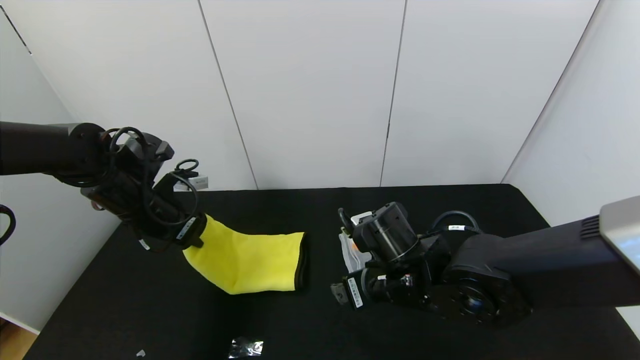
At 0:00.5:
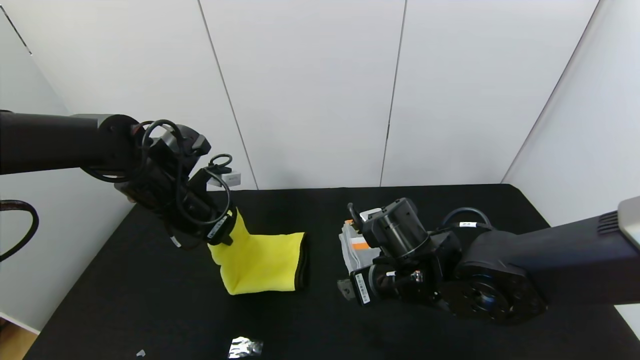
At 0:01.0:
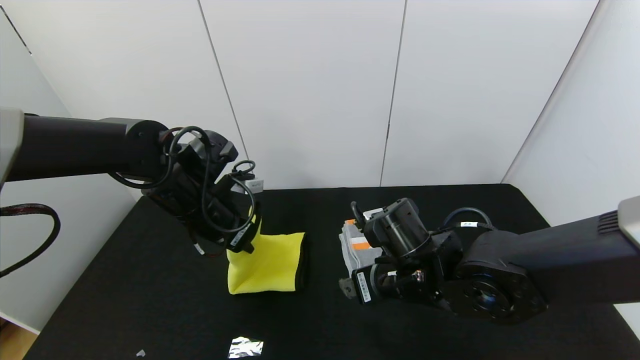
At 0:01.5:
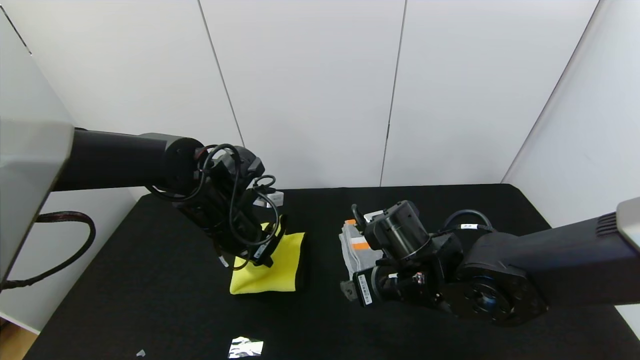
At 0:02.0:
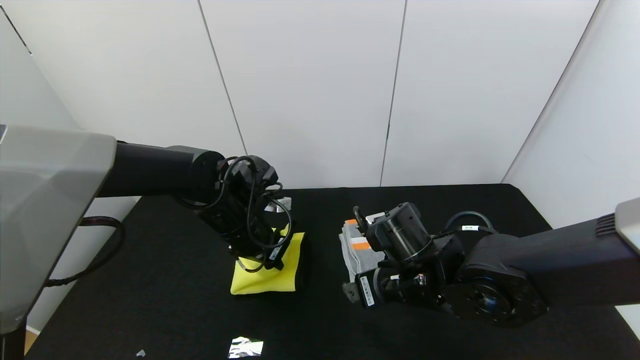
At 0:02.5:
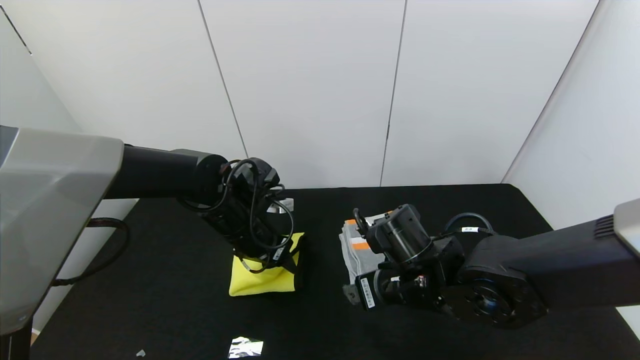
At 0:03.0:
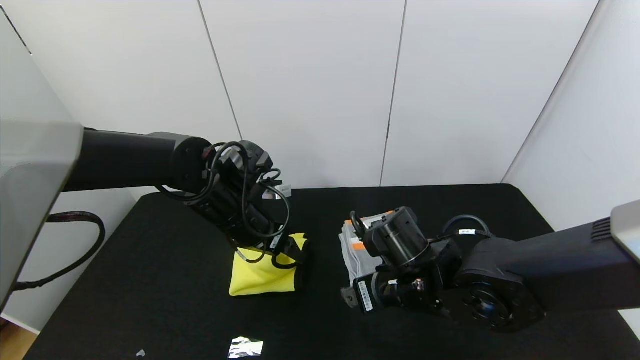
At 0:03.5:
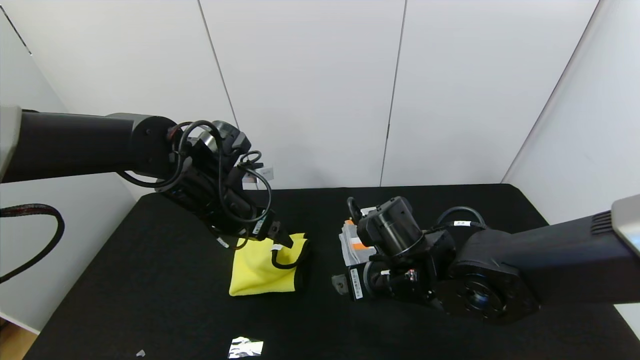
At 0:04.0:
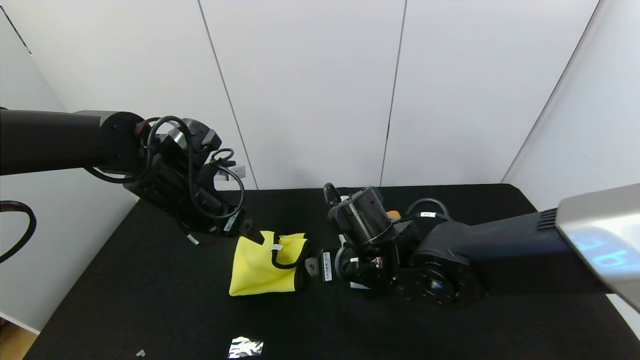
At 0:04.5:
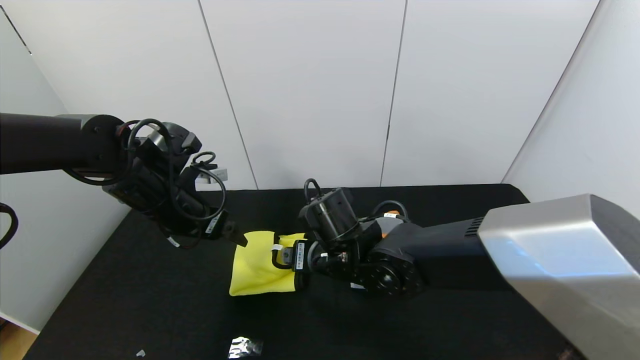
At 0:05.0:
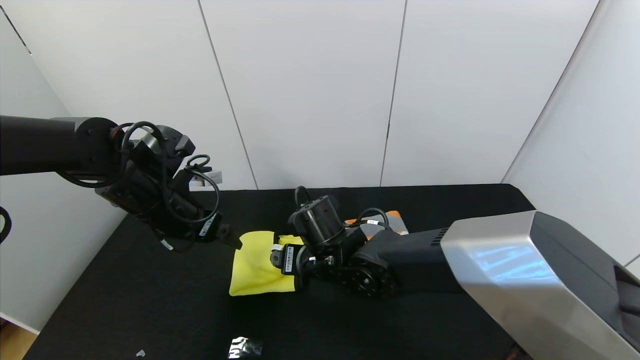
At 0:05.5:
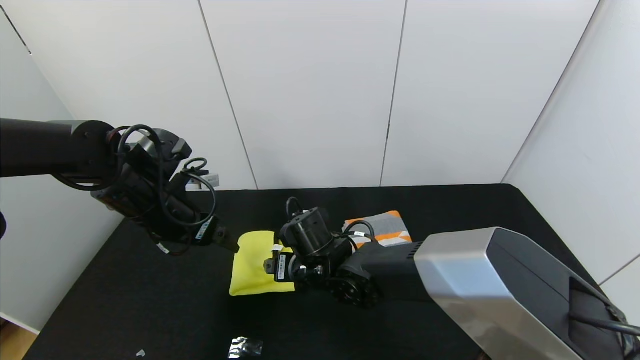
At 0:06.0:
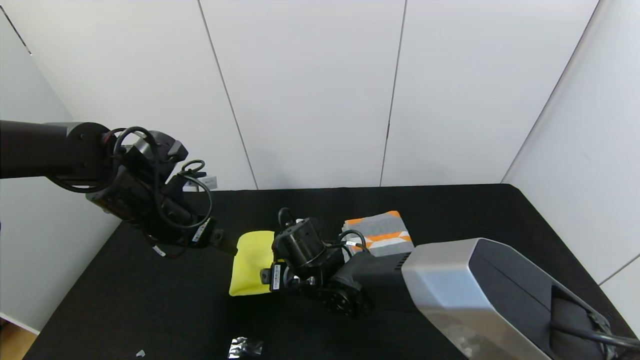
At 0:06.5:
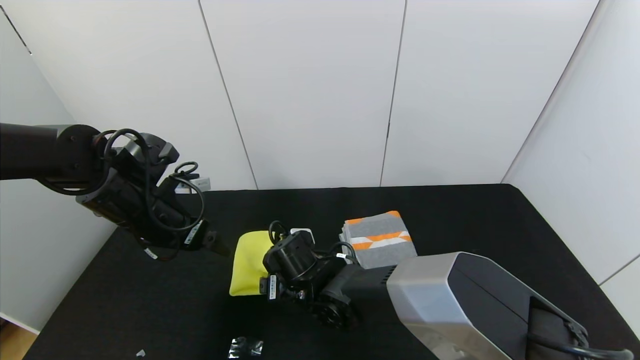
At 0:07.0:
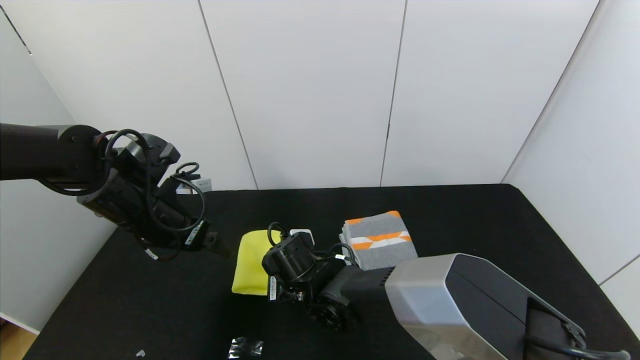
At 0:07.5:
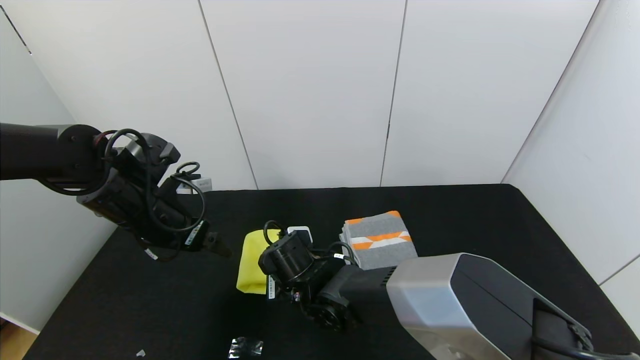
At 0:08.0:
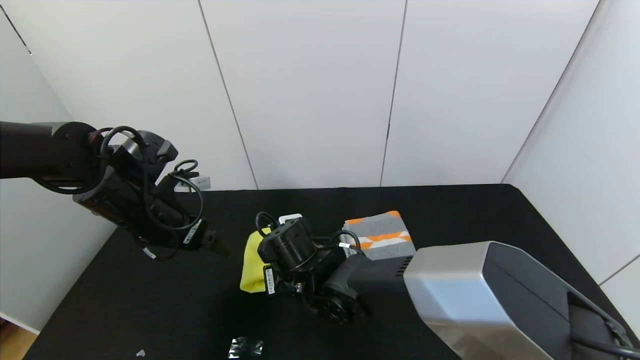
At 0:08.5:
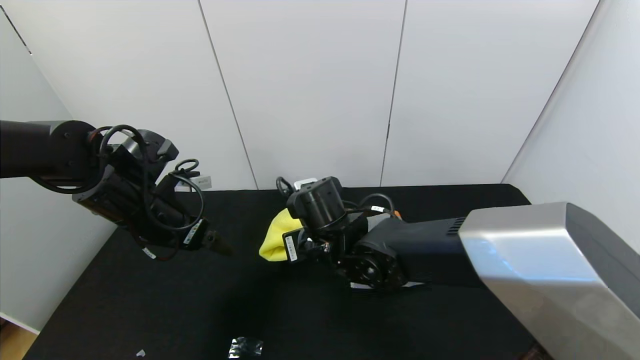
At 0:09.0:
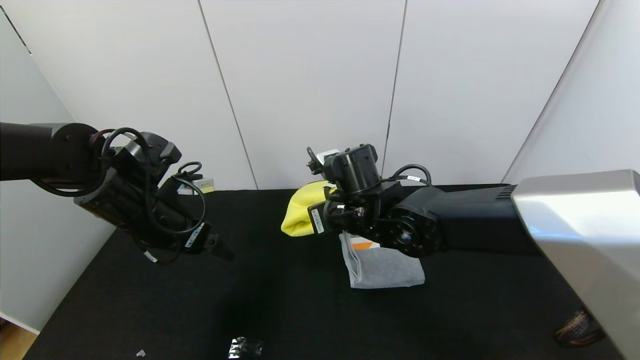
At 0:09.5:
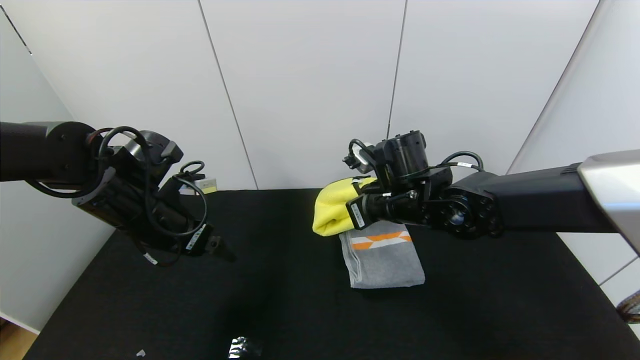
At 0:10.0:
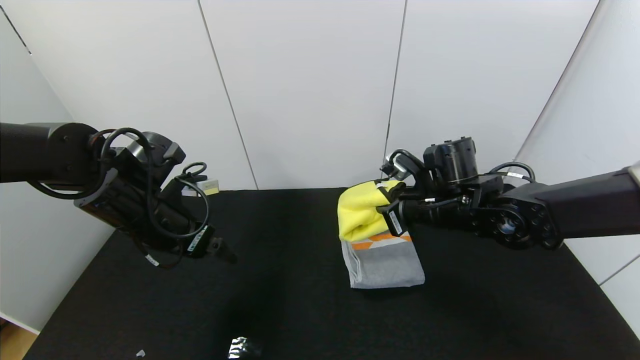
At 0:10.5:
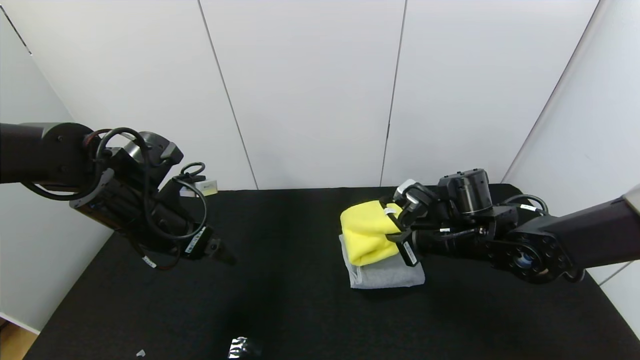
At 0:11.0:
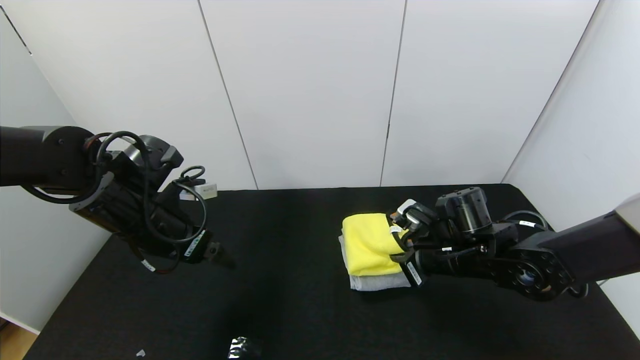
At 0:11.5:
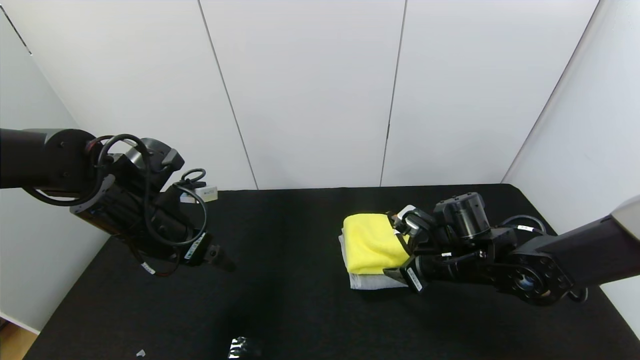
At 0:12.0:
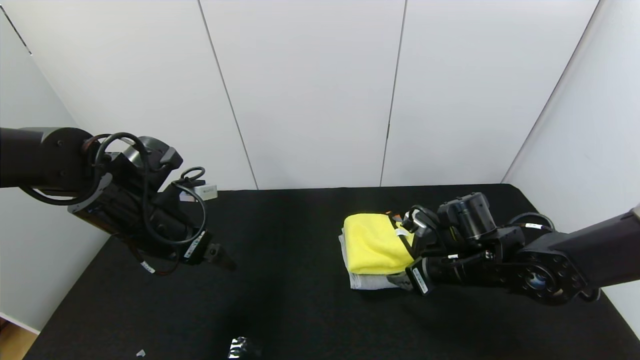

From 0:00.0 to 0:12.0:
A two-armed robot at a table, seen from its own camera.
Task of the whole recording: Use the gripper to fold the yellow towel and grey towel in half twice,then put the yellow towel on the grey towel.
Step, from 0:00.0 to 0:03.0: Fold the yellow towel from left to right with left gripper.
From 0:00.0 to 0:02.0: The left gripper moves to the right, roughly 15 cm.
From 0:02.0 to 0:04.0: The right gripper heads to the left, covering about 5 cm. The left gripper goes approximately 10 cm to the left and upward, and opens its fingers.
From 0:04.0 to 0:06.0: The right gripper moves to the left and downward, approximately 10 cm.
From 0:06.0 to 0:08.0: The right gripper closes its fingers.
From 0:08.0 to 0:10.0: The right gripper travels to the right and upward by approximately 25 cm.
From 0:10.0 to 0:12.0: The right gripper moves downward, roughly 5 cm, and opens its fingers.

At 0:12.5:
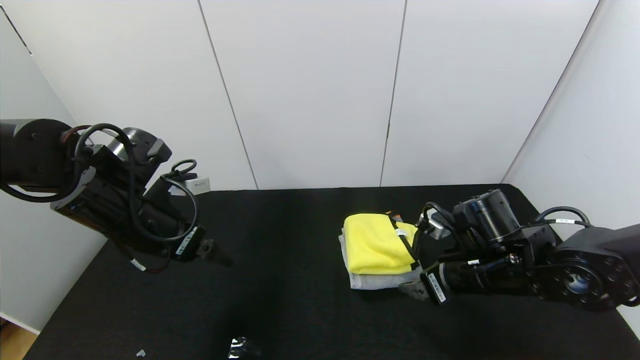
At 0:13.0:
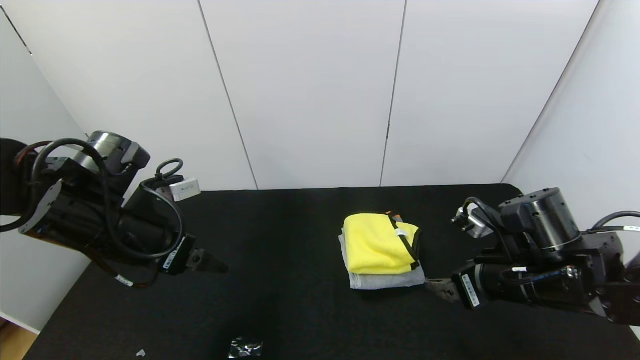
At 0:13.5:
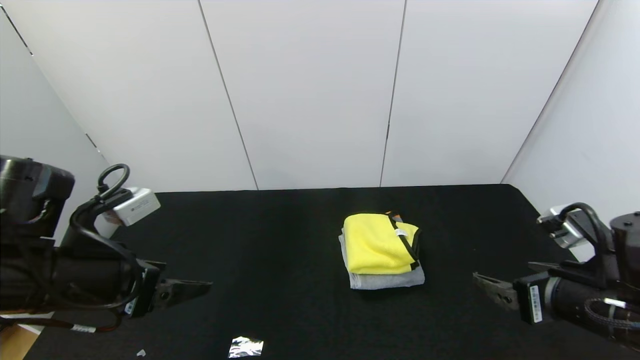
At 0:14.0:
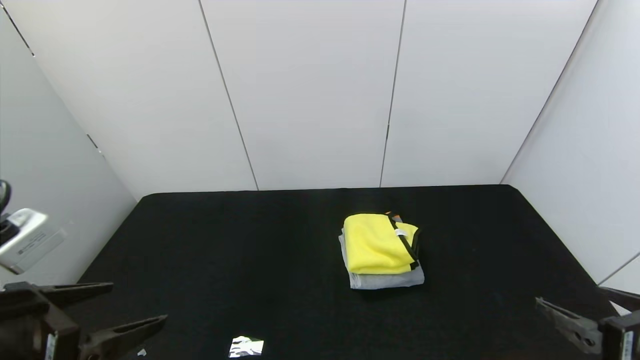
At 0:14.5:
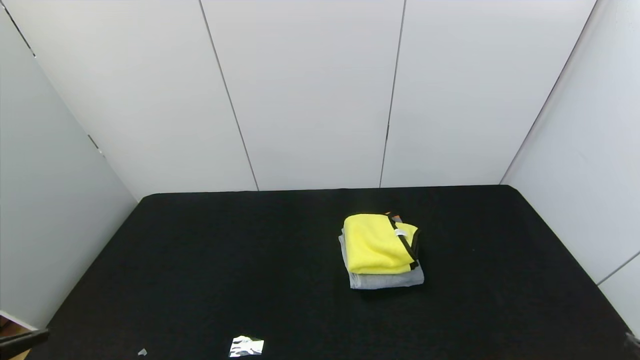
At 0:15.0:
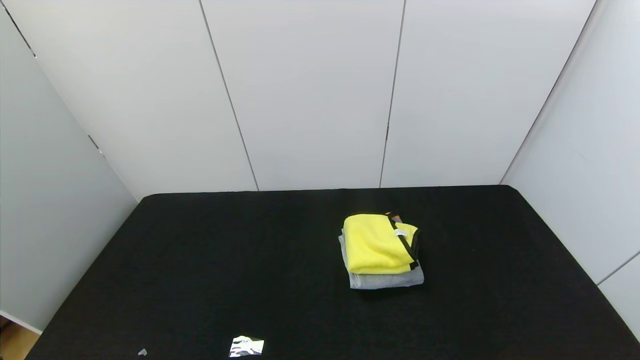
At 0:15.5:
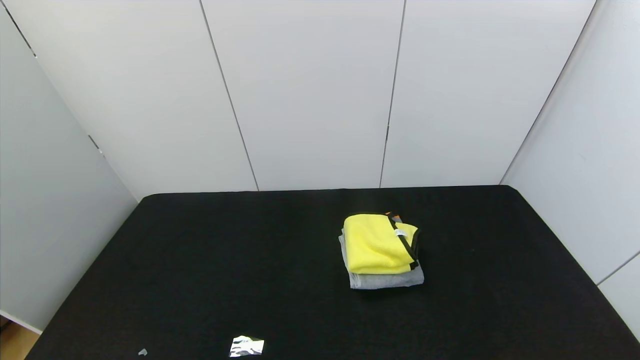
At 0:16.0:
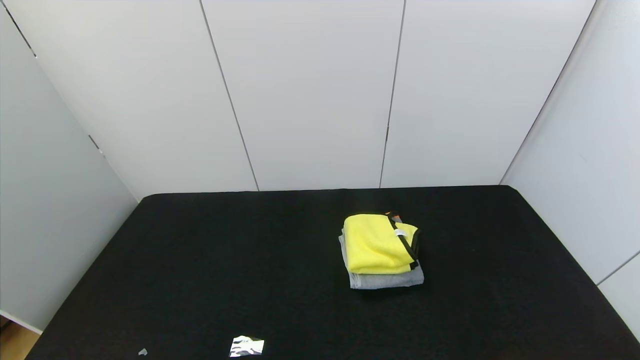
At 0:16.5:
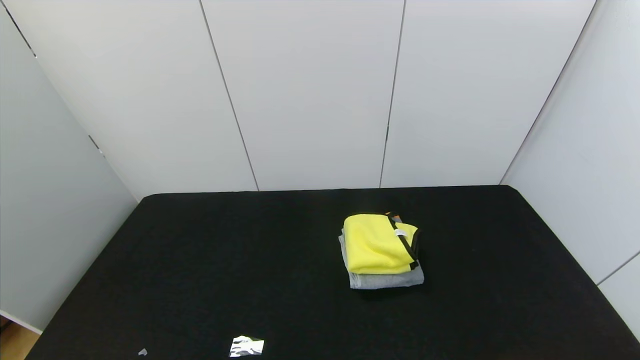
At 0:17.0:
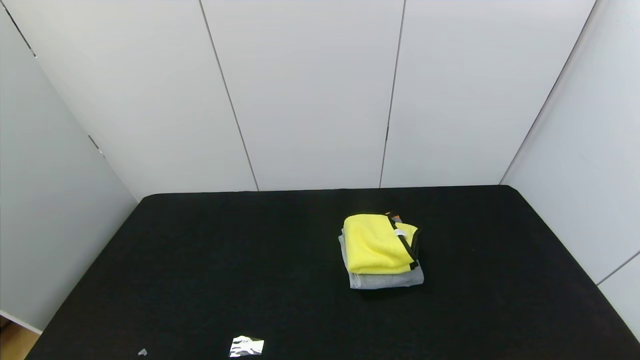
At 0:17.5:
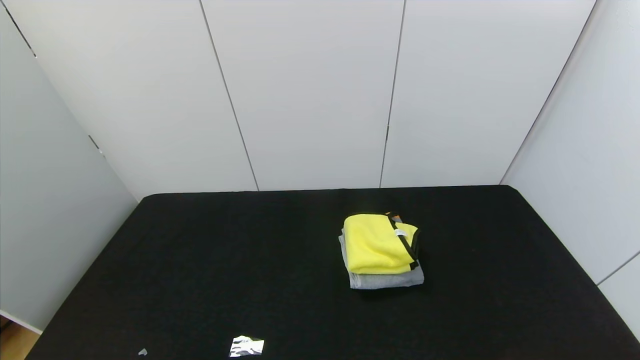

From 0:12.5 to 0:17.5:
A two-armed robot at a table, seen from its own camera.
Task of the whole recording: Use the gripper to fold the yellow towel and grey towel in half twice,then put the yellow towel on the grey towel.
From 0:12.5 to 0:15.0: The left gripper shifts about 30 cm backward; the right gripper heads backward and to the right, covering about 30 cm.
